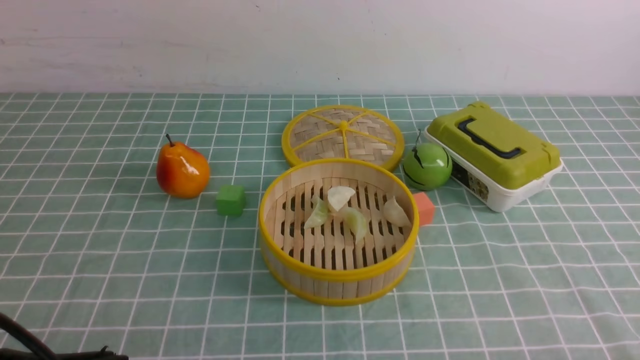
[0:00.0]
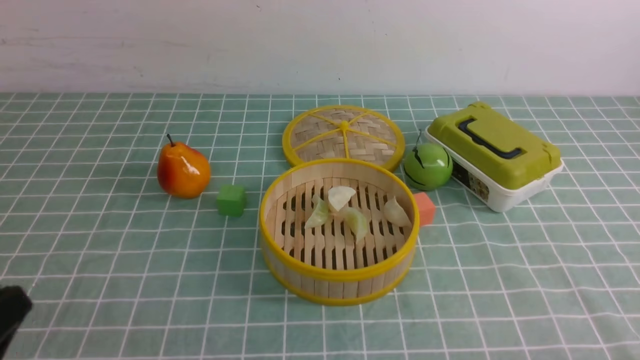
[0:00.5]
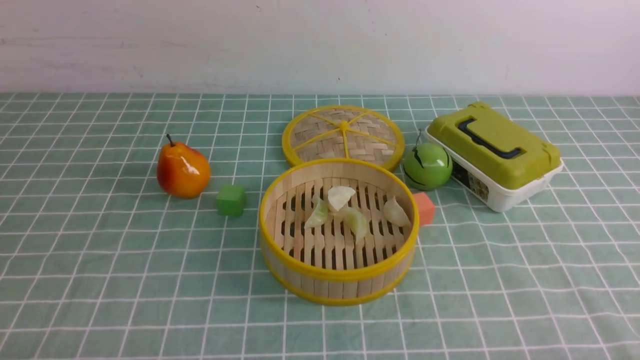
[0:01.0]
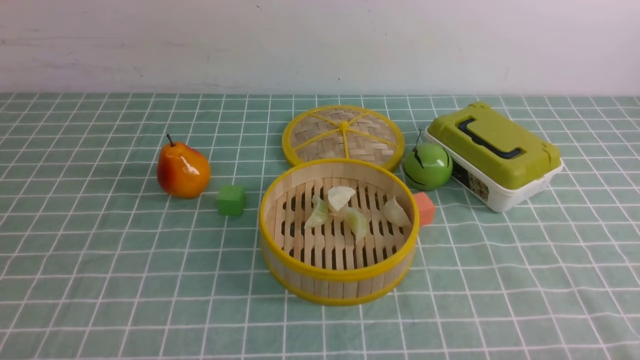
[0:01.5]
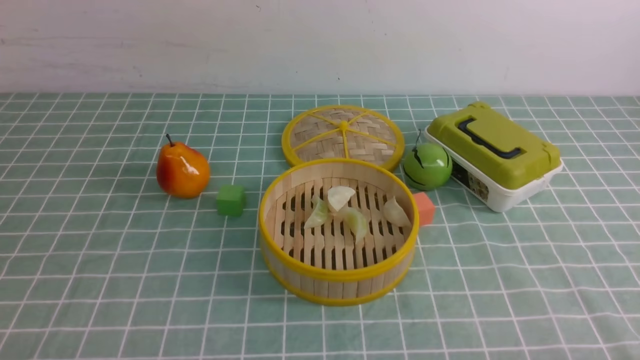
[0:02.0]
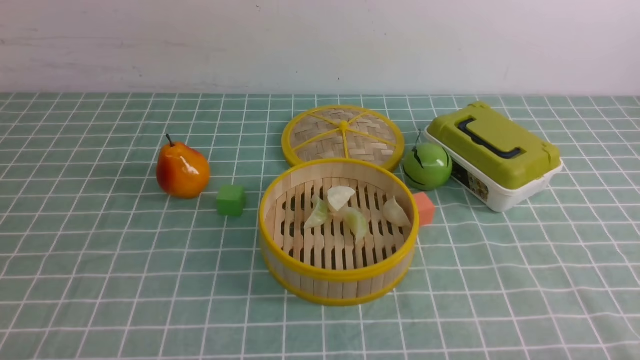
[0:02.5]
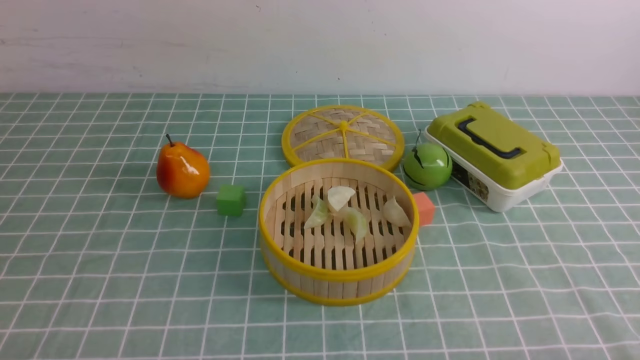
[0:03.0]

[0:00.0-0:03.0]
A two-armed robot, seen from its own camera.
Task of the whole recording: put the dumplings into the steamer on the table with the blue tablecloth.
0:00.0 to 0:01.5: The left gripper is displaced downward and to the left by approximately 15 cm.
0:01.5 to 0:03.0: The two grippers keep their place.
